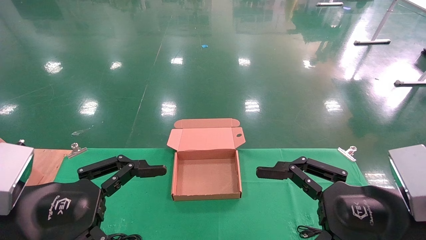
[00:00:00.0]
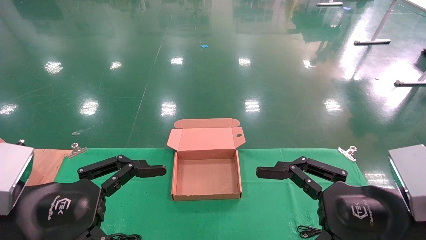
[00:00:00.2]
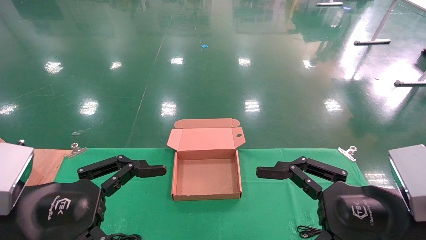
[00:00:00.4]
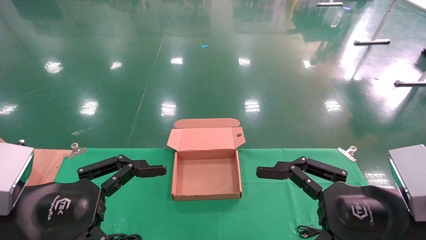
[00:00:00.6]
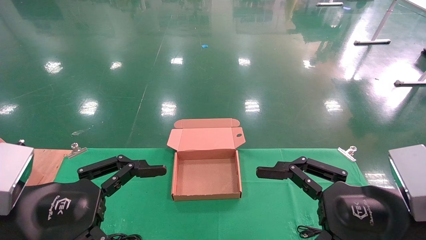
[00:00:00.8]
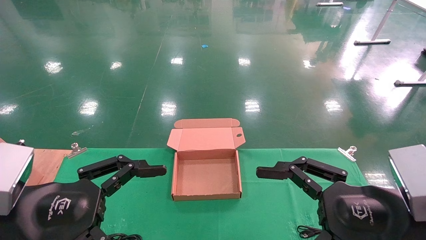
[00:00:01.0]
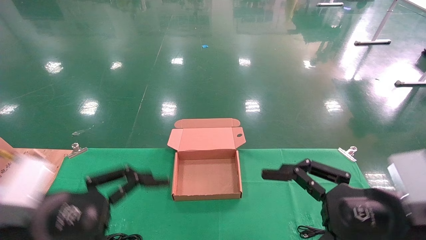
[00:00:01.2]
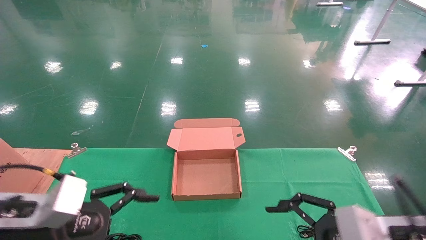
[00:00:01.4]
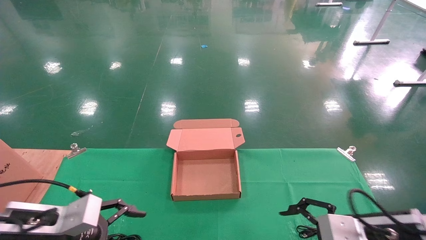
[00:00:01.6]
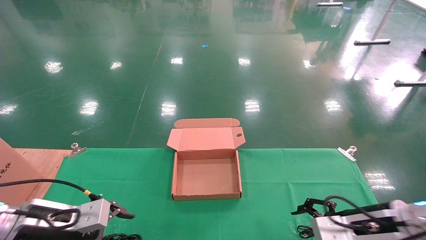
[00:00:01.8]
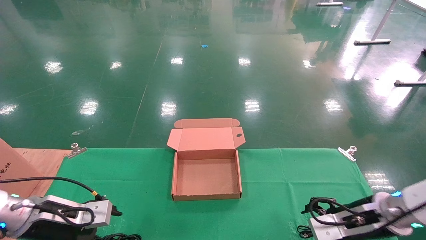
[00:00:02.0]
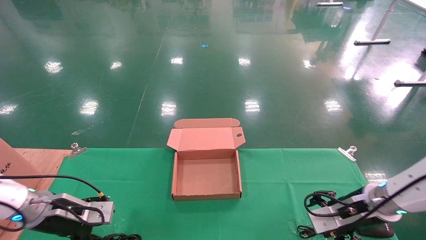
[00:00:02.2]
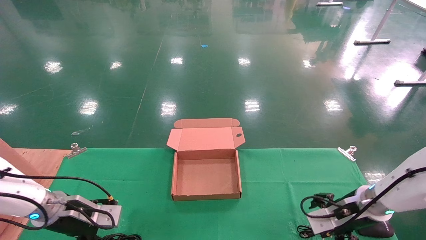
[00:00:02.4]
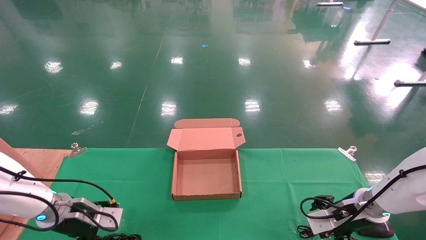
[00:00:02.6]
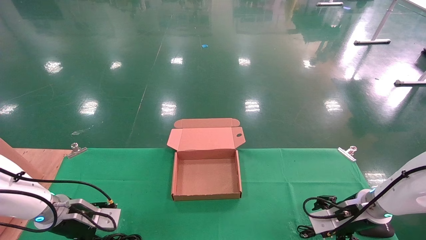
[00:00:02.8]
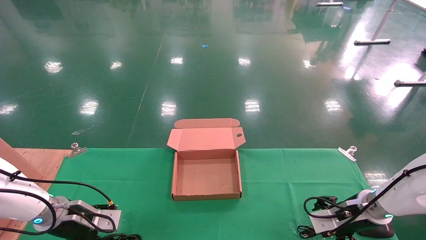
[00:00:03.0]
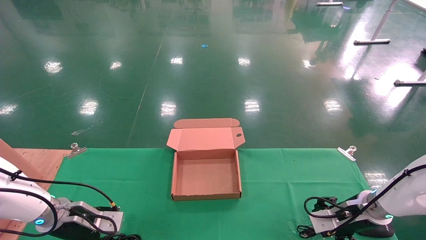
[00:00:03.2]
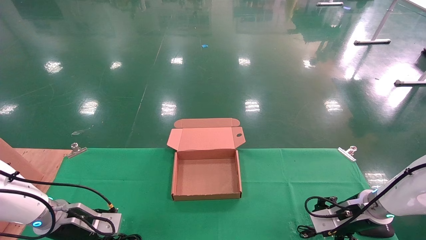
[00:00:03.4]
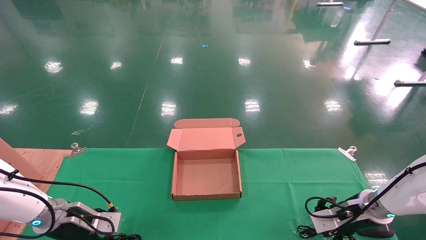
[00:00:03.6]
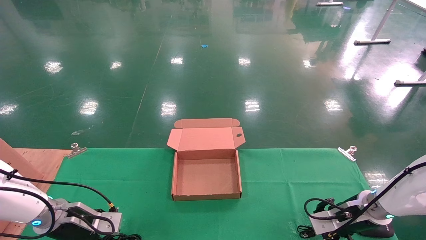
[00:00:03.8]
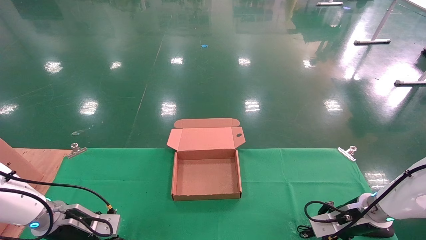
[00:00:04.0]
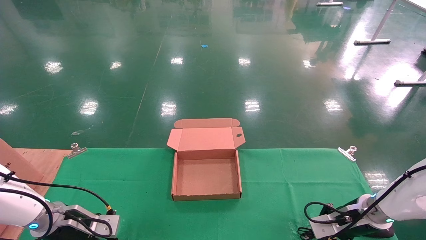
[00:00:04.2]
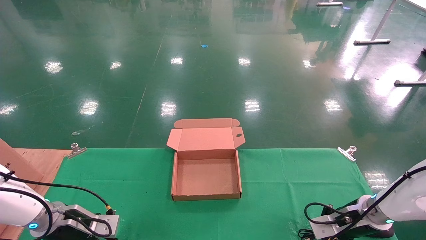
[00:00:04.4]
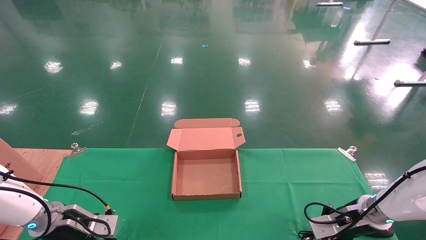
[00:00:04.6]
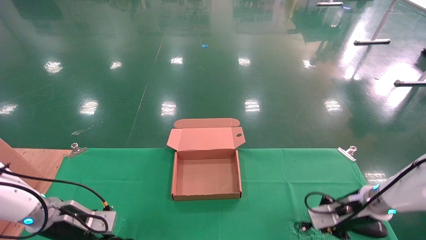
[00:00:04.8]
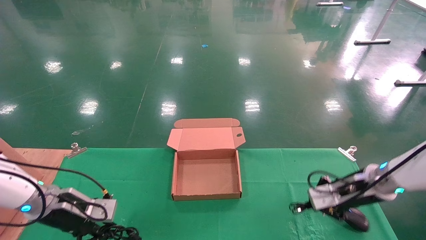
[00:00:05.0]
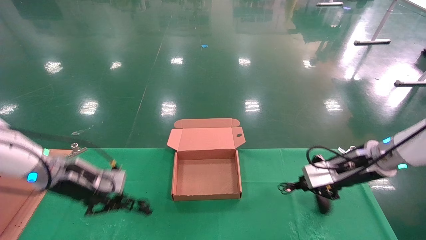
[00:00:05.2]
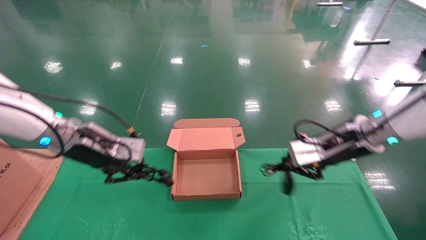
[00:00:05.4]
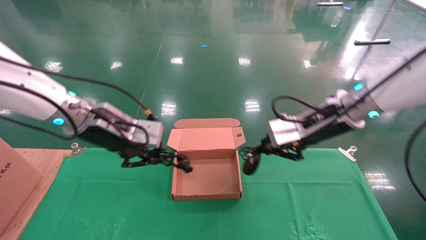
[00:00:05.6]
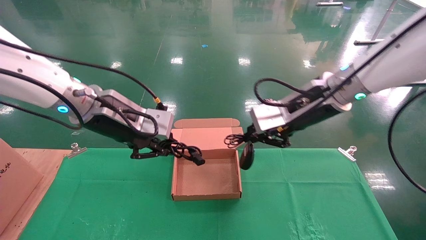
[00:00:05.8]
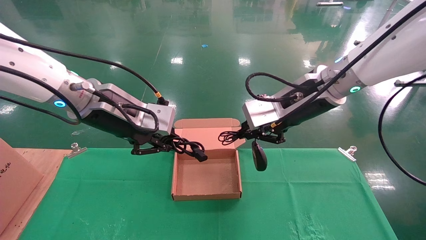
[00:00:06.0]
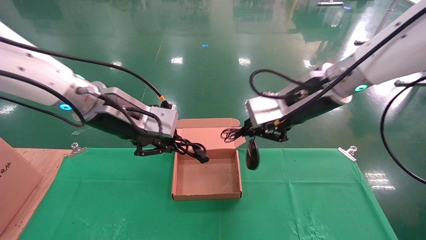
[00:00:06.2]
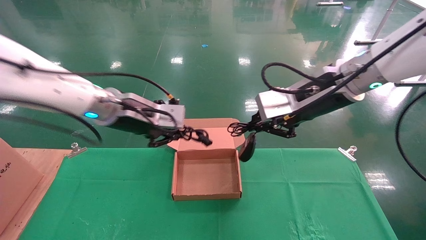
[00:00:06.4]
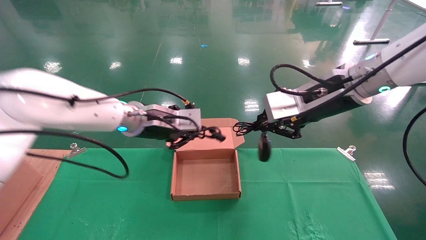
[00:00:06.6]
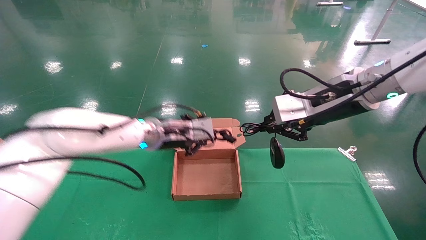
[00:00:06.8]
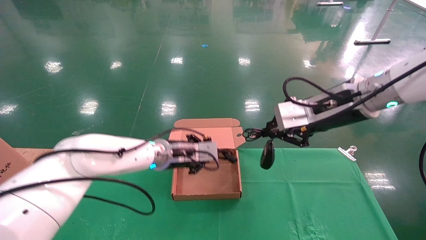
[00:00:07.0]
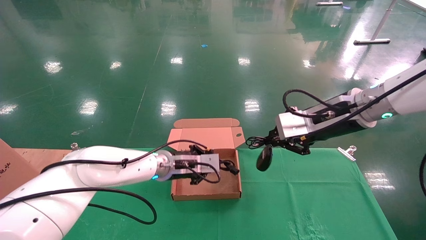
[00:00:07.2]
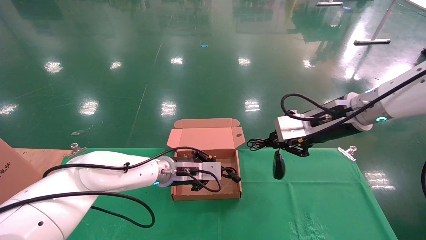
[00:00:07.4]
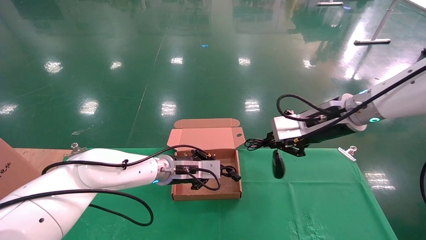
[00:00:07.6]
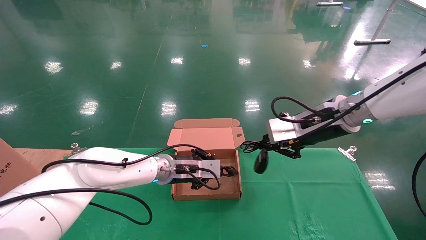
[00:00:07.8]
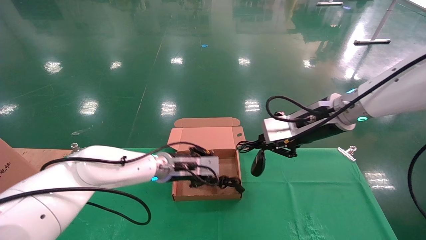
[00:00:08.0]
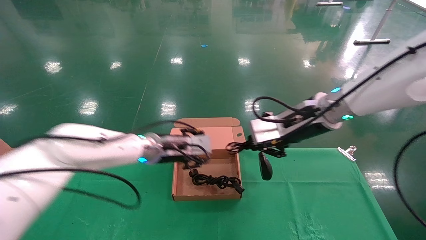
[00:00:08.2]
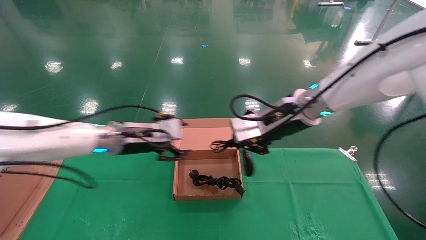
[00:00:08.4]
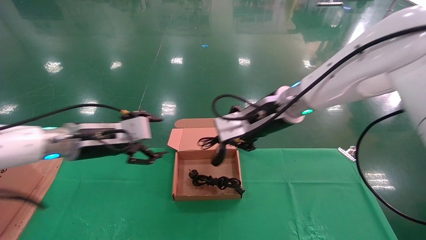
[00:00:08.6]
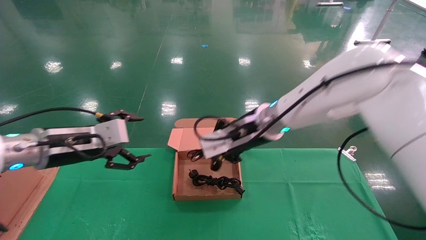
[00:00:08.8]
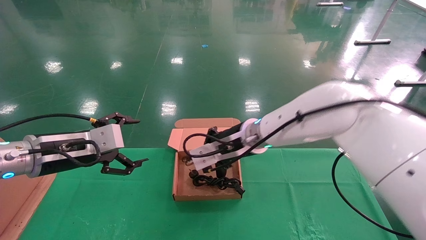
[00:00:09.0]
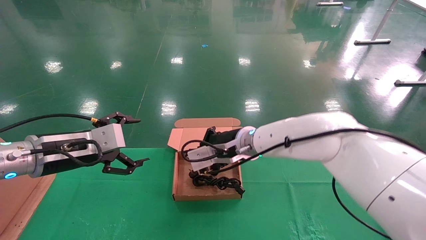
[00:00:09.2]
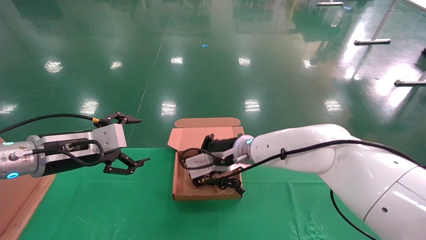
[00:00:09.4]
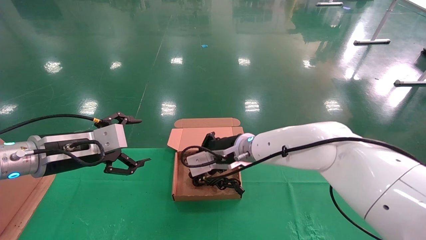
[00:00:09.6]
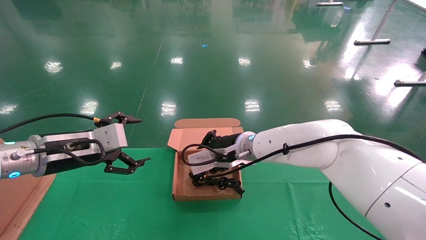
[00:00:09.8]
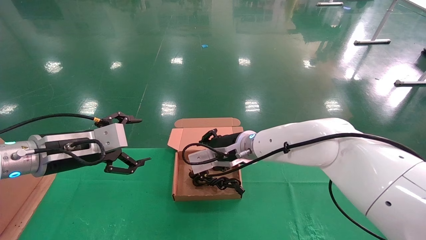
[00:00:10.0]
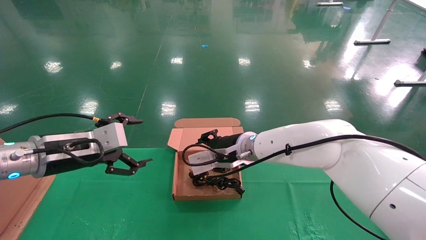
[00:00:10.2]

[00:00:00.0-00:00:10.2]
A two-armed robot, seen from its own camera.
Step, 00:00:01.8 to 00:00:05.0: Grab and lift both the mouse and power cord from the accessory packaging area at the same time.
00:00:00.0 to 00:00:01.4: The right gripper is displaced downward by roughly 5 cm. The left gripper shifts about 5 cm downward and forward.
00:00:01.4 to 00:00:03.0: Both grippers travel together forward and downward, roughly 20 cm.
00:00:03.0 to 00:00:04.4: The left gripper closes; the right gripper closes.
00:00:04.4 to 00:00:05.8: The right gripper shifts roughly 30 cm upward and to the left, while the left gripper moves upward and to the right, some 30 cm.
00:00:05.8 to 00:00:07.2: The left gripper travels downward, forward and to the right by about 20 cm.
00:00:07.2 to 00:00:08.8: The left gripper is displaced to the left, backward and upward by roughly 25 cm, and opens its fingers; the right gripper is displaced to the left by about 15 cm.
00:00:08.8 to 00:00:10.2: The right gripper is displaced downward by roughly 10 cm, and opens.

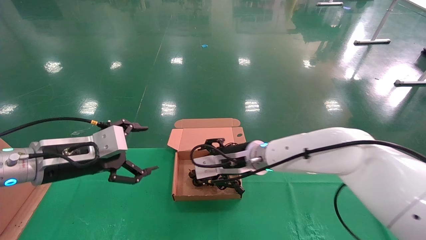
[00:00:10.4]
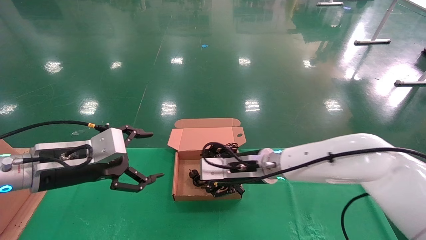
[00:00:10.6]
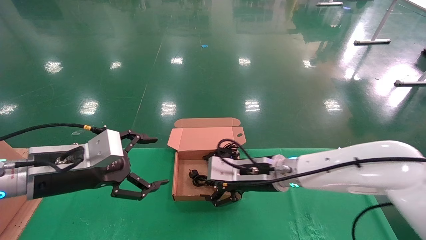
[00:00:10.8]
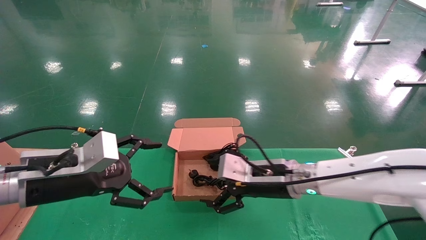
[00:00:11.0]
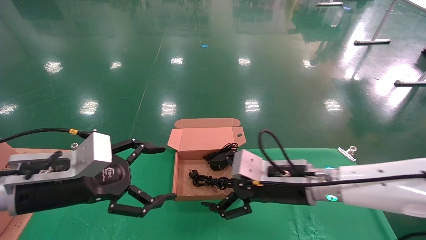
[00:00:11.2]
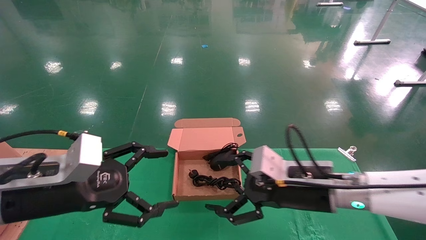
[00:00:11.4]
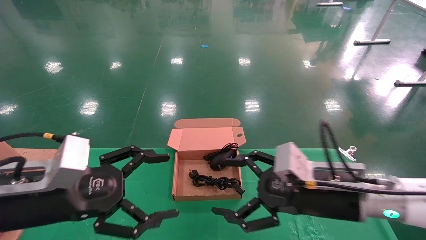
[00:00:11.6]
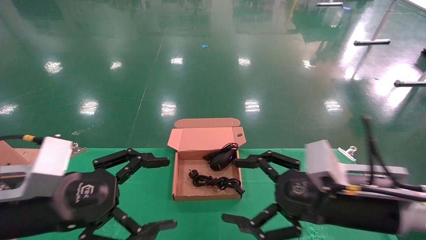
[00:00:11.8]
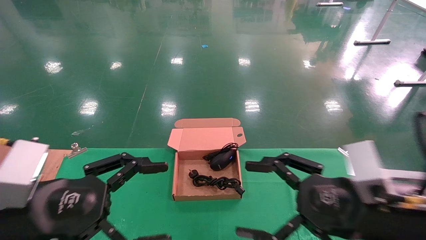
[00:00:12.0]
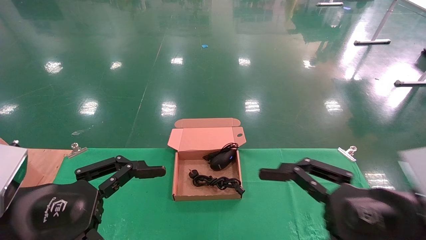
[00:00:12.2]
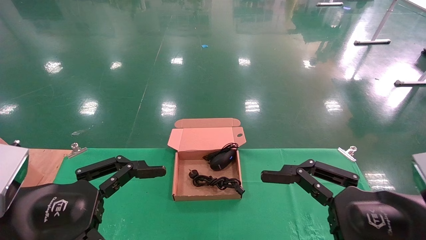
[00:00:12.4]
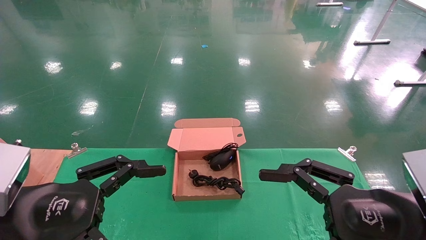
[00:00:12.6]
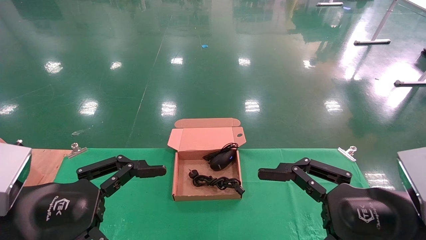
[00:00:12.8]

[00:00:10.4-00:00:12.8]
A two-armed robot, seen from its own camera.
00:00:10.4 to 00:00:11.6: The right gripper is displaced backward and to the right by about 20 cm, and opens; the left gripper heads backward, covering approximately 10 cm.
00:00:11.6 to 00:00:12.8: The right gripper goes about 10 cm backward and to the right.
